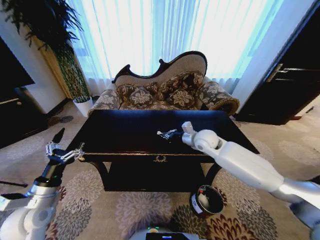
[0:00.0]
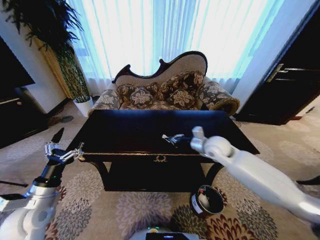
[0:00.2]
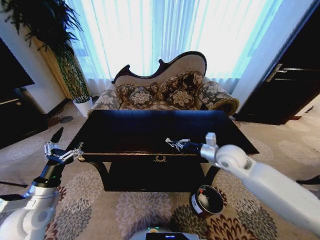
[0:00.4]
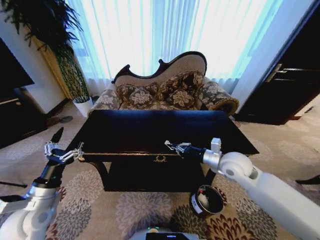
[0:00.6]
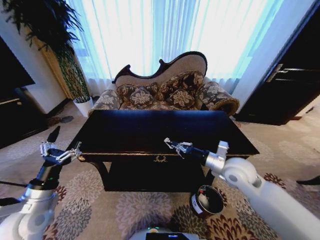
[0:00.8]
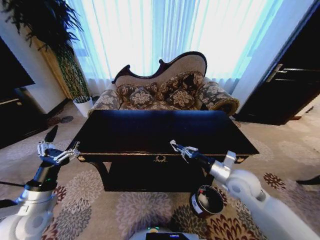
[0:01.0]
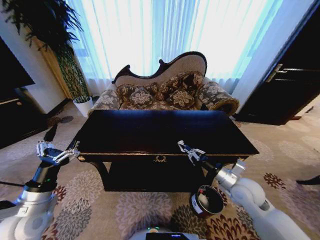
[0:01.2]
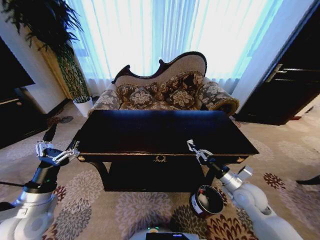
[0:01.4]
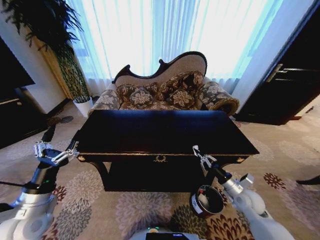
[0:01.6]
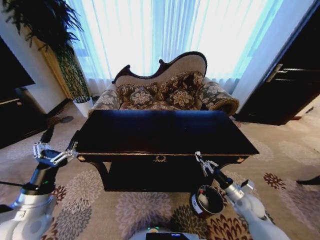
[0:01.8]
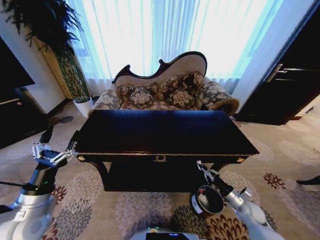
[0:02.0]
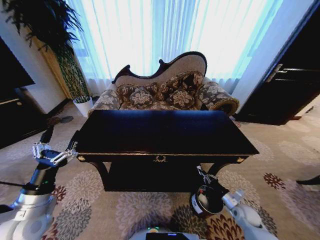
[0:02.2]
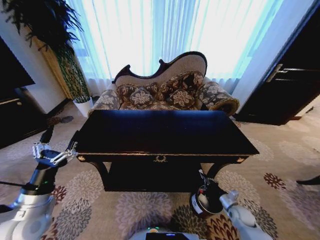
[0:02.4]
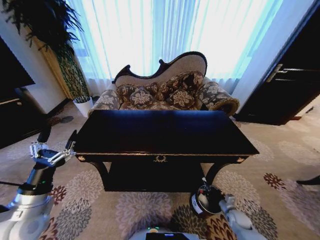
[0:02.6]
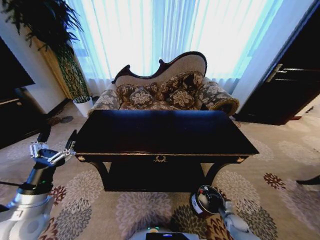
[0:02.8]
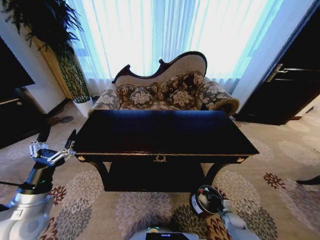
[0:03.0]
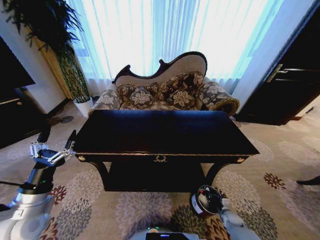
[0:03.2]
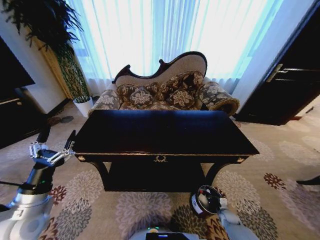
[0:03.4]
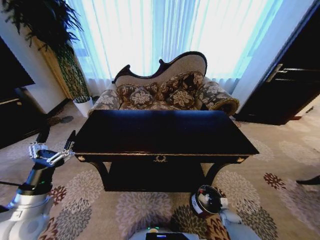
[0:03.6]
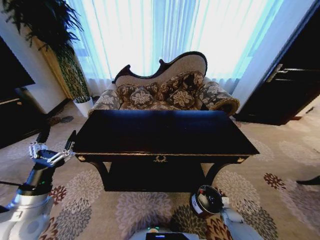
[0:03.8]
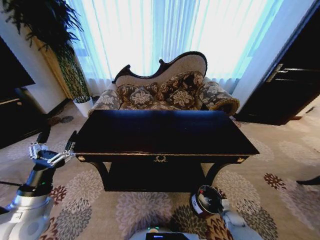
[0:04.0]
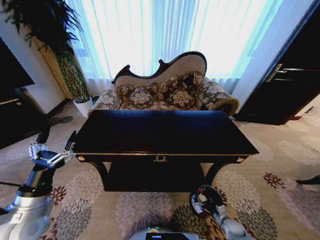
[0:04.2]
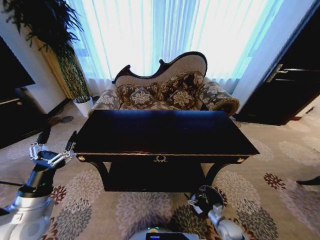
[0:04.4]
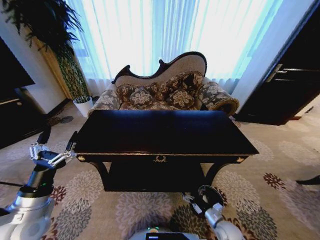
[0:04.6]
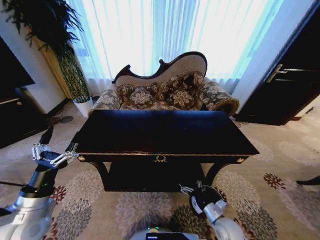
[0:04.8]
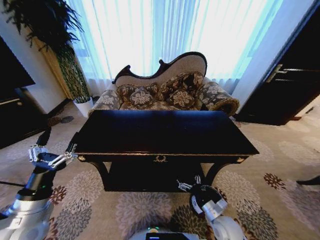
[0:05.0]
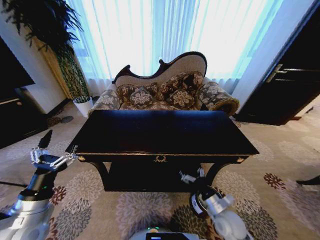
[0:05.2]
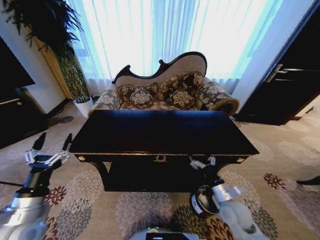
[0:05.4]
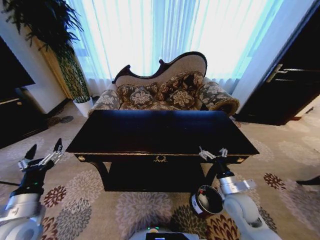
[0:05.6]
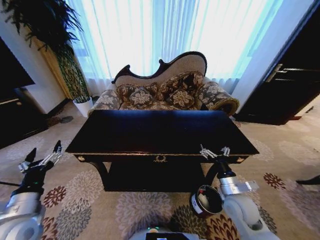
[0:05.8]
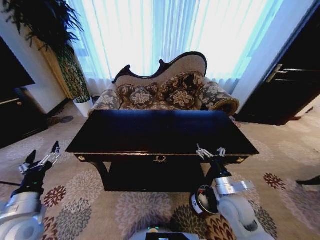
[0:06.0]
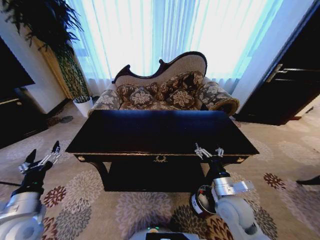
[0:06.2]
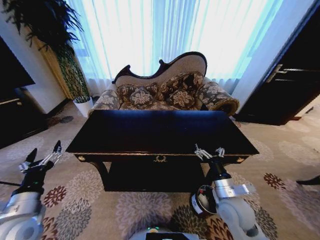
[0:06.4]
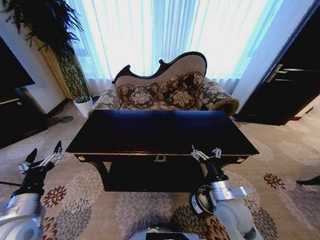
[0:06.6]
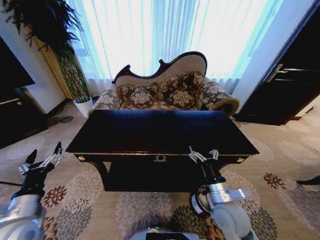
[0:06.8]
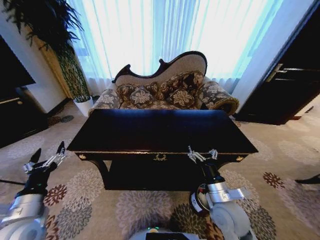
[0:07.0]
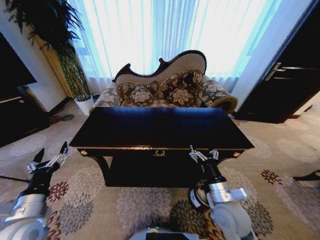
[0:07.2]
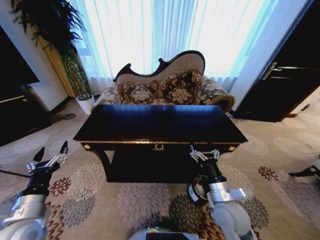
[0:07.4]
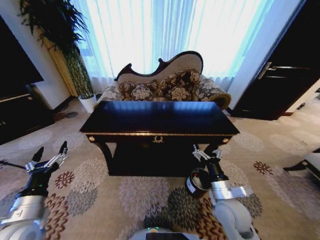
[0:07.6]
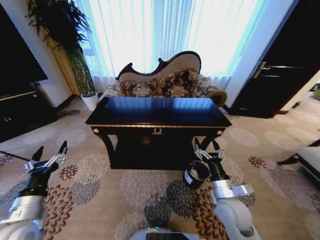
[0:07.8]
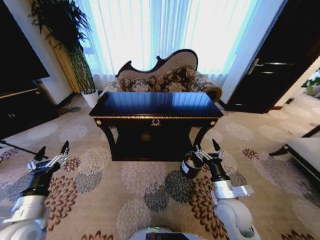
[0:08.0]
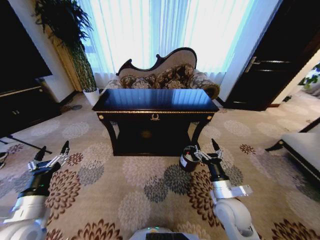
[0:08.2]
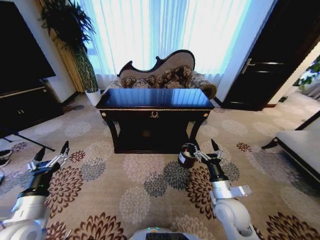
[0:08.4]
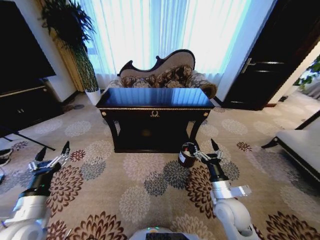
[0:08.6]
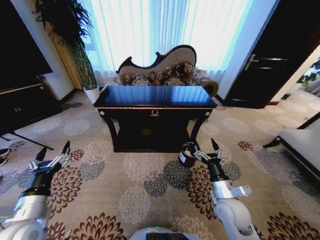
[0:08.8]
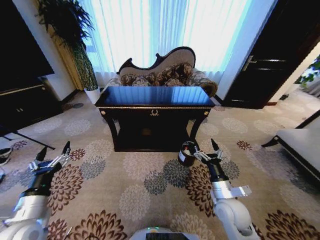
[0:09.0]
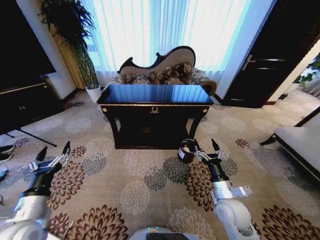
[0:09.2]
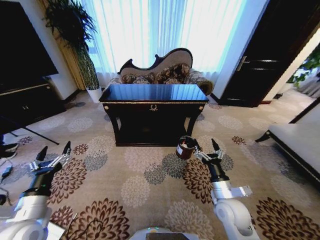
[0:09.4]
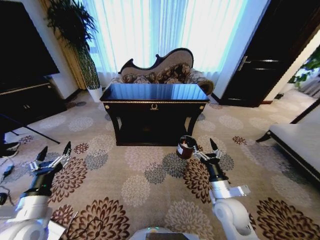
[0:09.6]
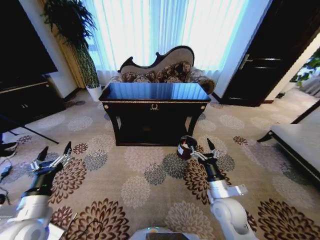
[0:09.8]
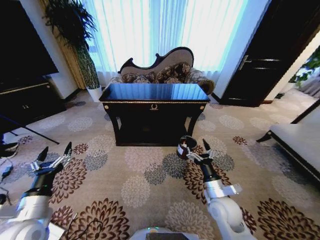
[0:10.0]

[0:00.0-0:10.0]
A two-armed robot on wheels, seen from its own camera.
Task of the whole recording: Move to the front of the table and place the trash on the table into the trash bin.
0:00.0 to 0:01.4: The right gripper moves backward, to the right and downward, roughly 25 cm.
0:01.4 to 0:02.8: The right gripper travels downward by about 30 cm.
0:02.8 to 0:04.2: The right gripper opens its fingers.
0:04.2 to 0:05.8: The right gripper travels upward by some 30 cm.
0:05.8 to 0:07.2: The right gripper is displaced to the left by approximately 5 cm.

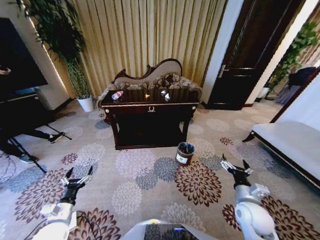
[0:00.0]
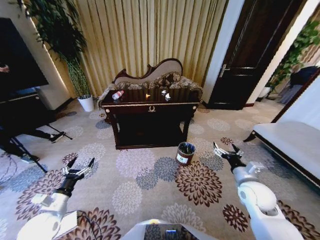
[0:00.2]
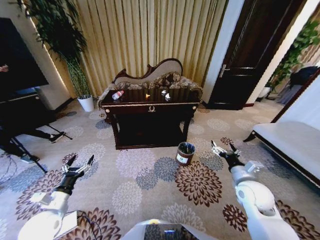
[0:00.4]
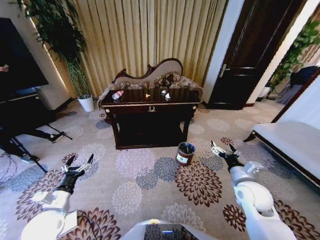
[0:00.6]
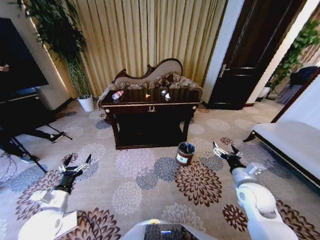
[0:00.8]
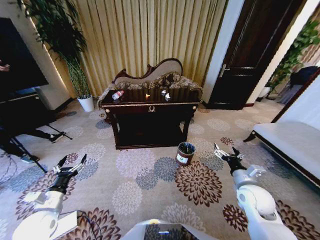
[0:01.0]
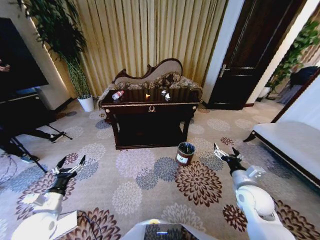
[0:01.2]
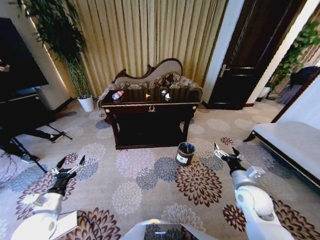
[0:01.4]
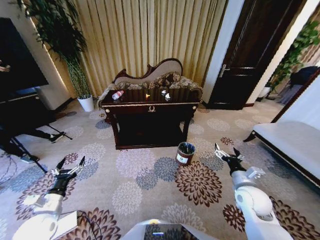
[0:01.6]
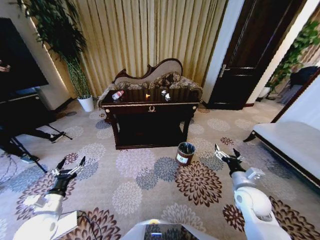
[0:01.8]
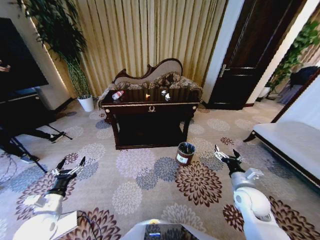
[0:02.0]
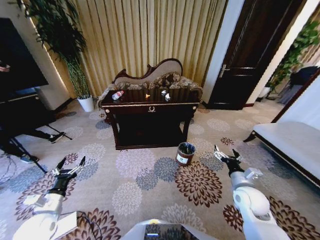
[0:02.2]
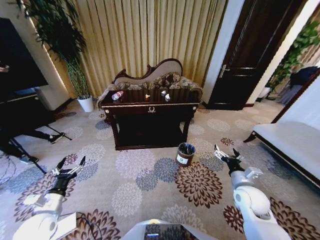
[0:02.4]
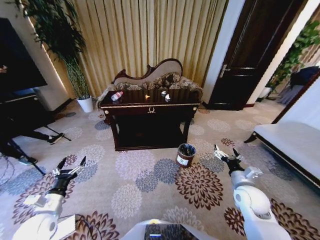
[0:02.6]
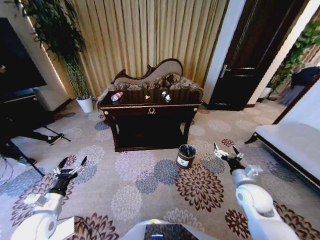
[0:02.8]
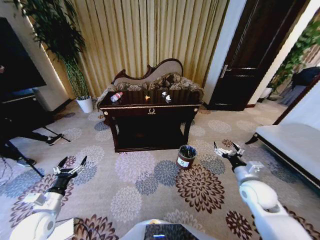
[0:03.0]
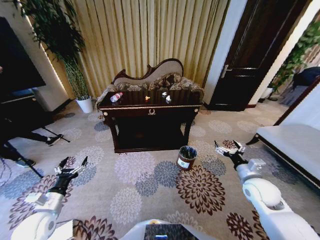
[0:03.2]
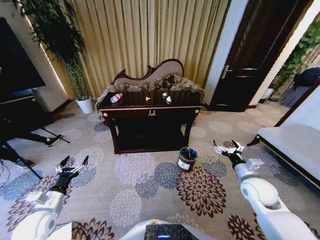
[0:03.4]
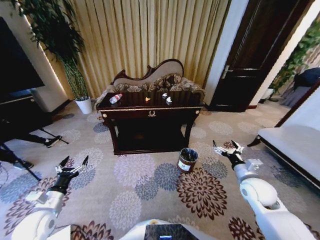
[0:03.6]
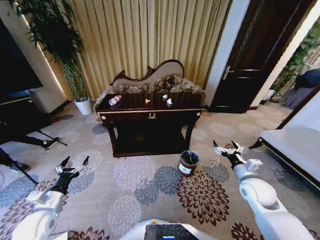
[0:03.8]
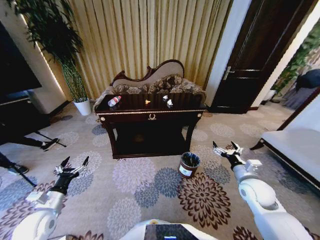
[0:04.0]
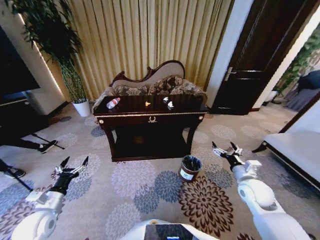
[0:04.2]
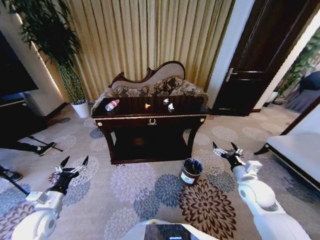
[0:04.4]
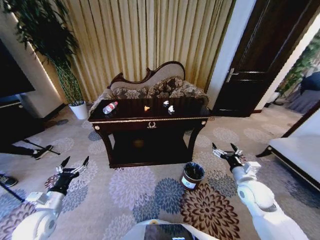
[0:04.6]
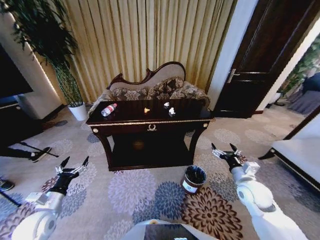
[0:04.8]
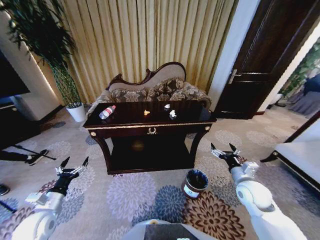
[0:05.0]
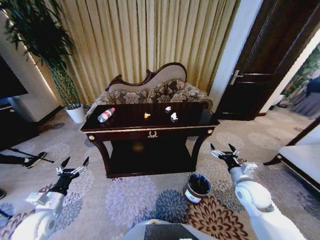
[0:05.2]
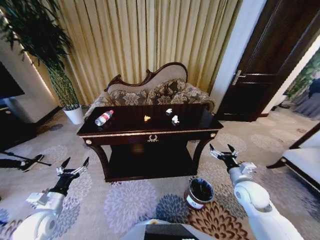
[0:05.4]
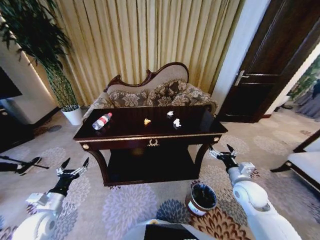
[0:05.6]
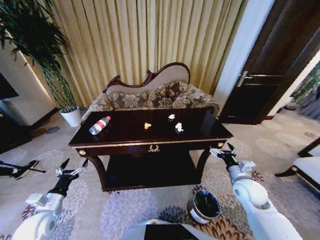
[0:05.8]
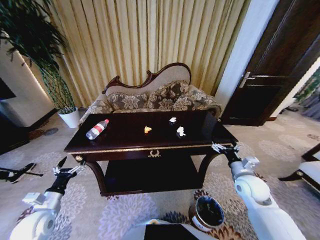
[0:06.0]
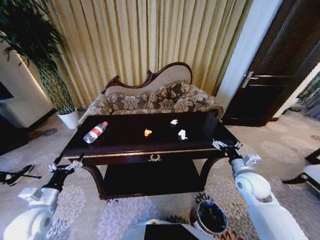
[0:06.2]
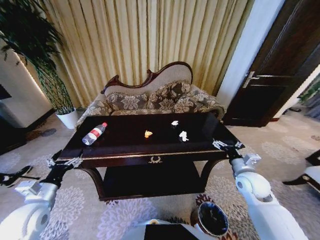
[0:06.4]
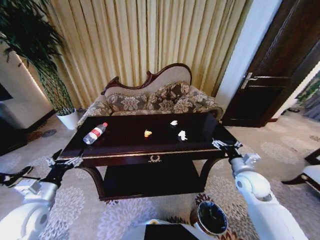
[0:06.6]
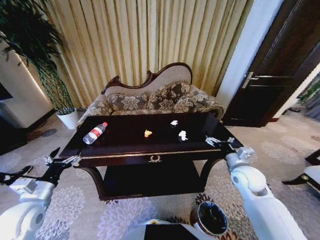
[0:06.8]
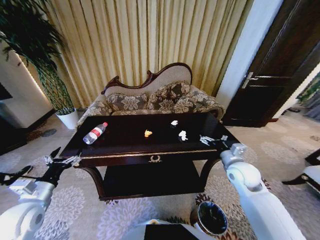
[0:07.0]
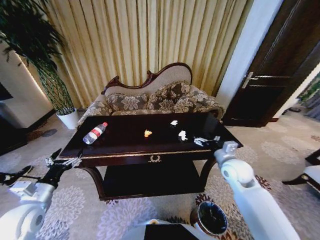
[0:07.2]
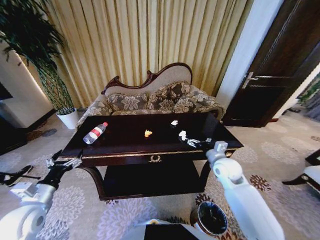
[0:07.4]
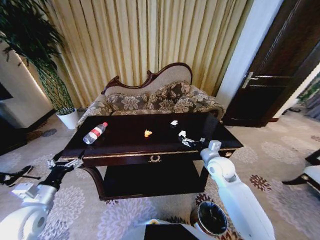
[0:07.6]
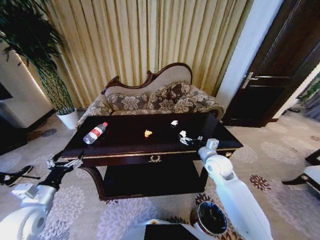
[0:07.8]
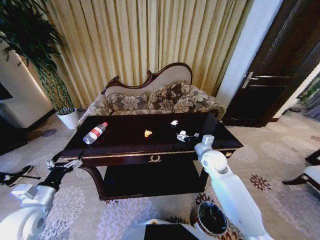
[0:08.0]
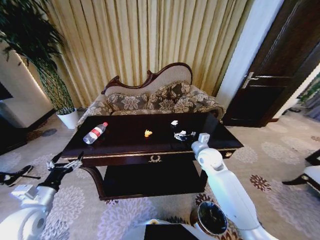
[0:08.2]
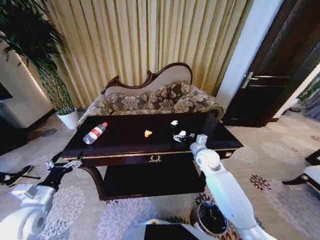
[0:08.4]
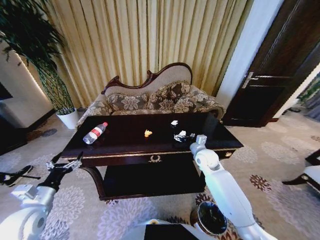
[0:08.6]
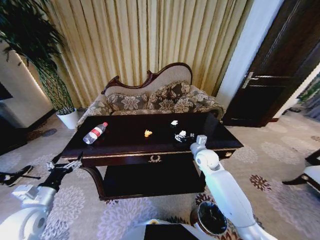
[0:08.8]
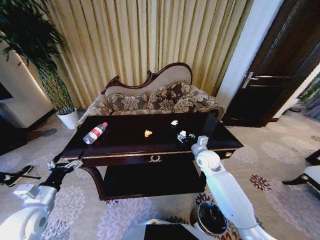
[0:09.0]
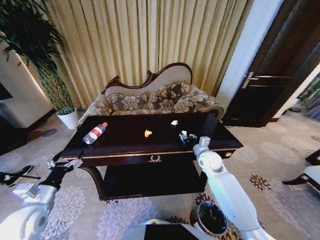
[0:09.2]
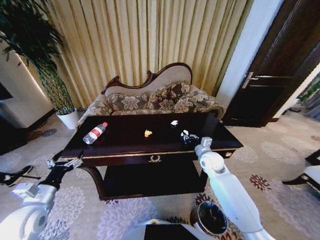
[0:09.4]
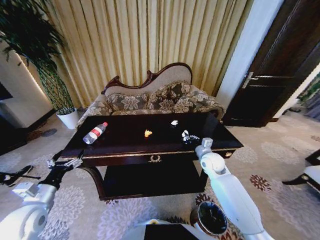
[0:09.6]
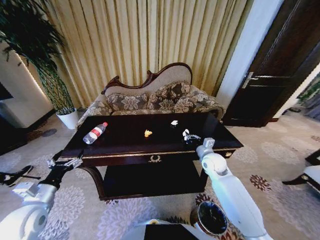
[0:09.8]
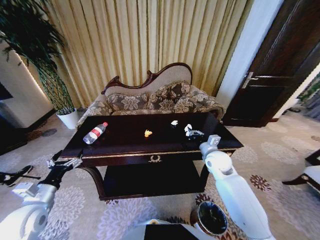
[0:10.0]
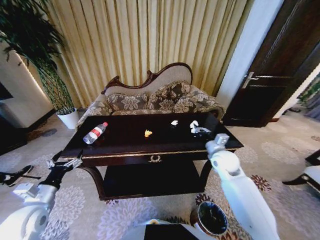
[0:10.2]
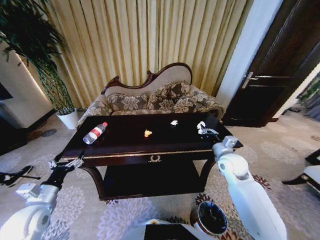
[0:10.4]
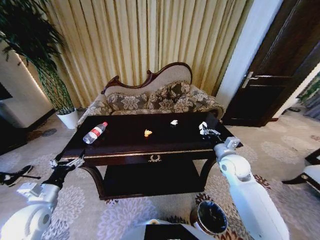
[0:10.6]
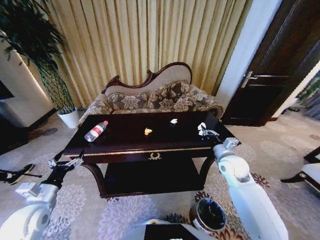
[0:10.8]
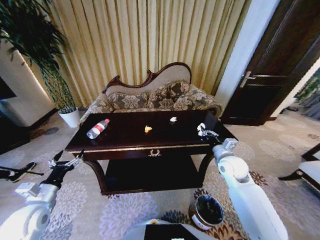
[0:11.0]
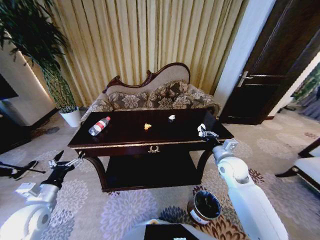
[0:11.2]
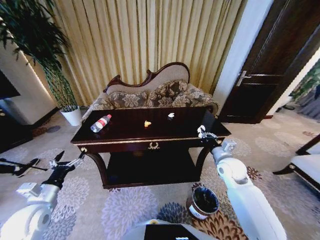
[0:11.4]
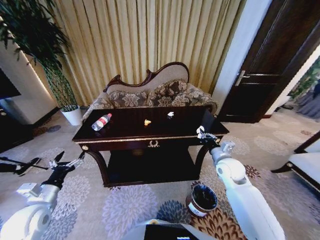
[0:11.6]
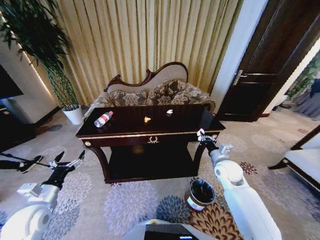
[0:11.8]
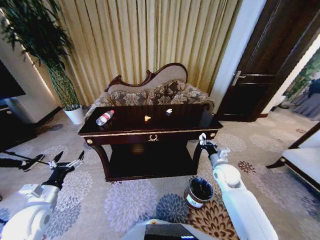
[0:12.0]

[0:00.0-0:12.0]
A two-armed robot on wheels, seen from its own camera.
Task of the whole recording: Move to the front of the table and place the trash on the table into the trash bin.
0:06.0 to 0:07.6: The right gripper goes approximately 10 cm to the left and forward. Meanwhile the left gripper travels upward by about 5 cm.
0:07.6 to 0:09.0: The right gripper travels forward by roughly 5 cm.
0:09.0 to 0:10.4: The right gripper moves to the right and backward, about 10 cm, and closes up.
0:10.4 to 0:12.0: The right gripper heads downward, covering some 10 cm.
